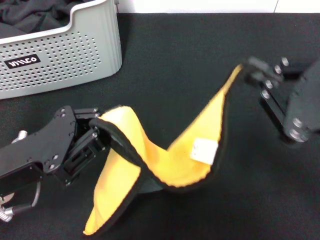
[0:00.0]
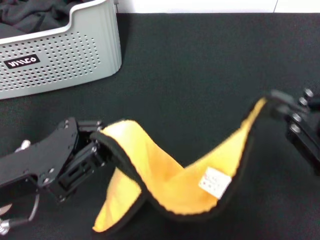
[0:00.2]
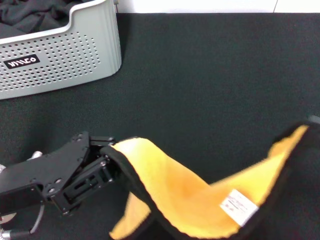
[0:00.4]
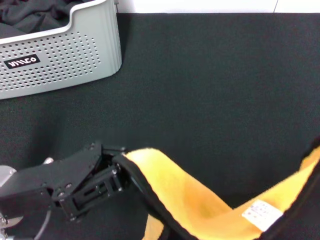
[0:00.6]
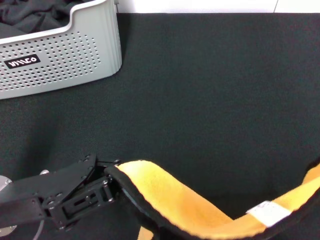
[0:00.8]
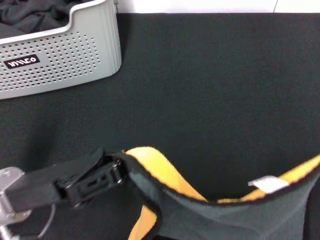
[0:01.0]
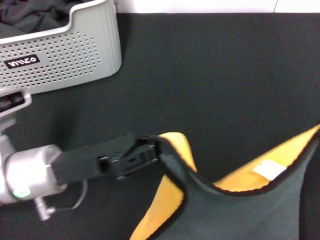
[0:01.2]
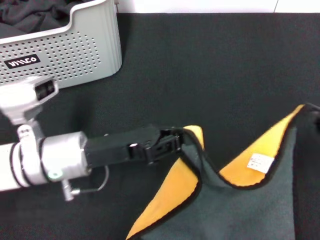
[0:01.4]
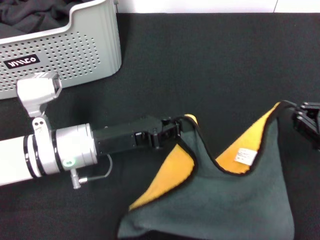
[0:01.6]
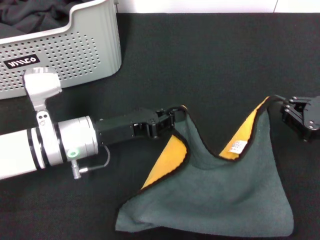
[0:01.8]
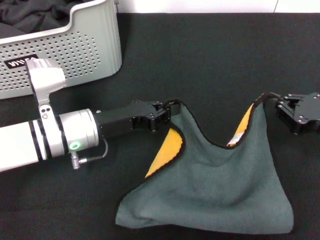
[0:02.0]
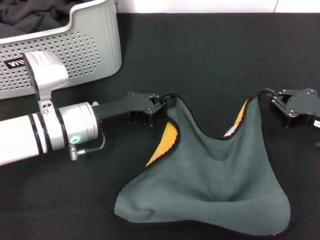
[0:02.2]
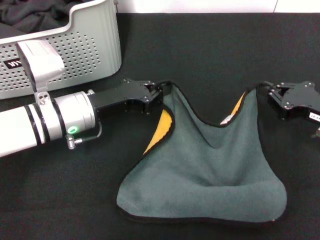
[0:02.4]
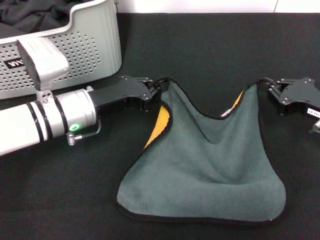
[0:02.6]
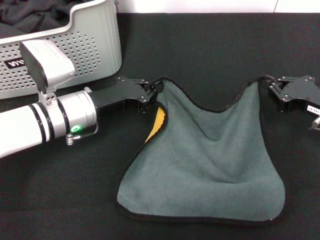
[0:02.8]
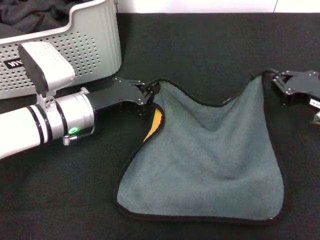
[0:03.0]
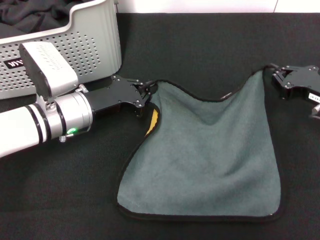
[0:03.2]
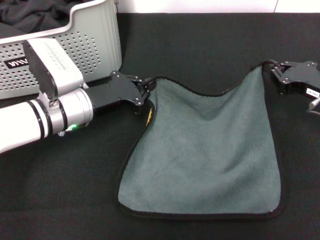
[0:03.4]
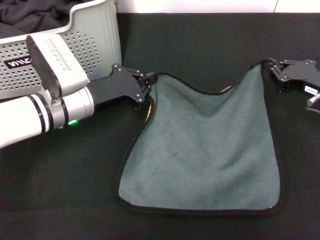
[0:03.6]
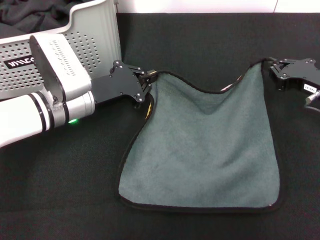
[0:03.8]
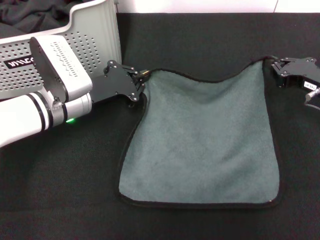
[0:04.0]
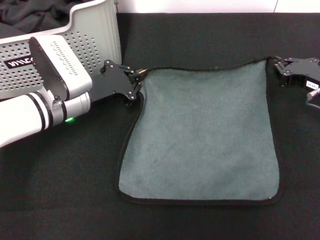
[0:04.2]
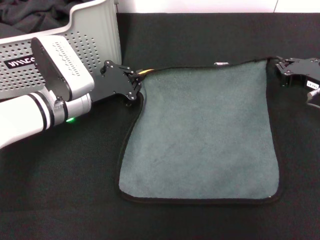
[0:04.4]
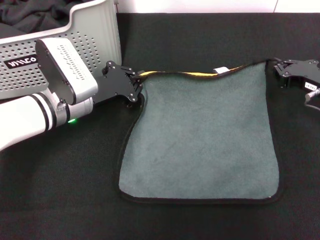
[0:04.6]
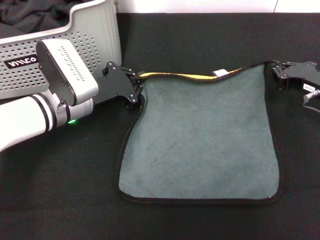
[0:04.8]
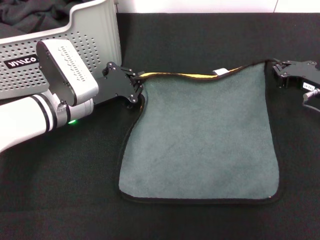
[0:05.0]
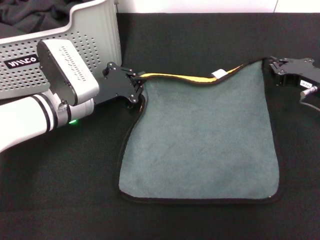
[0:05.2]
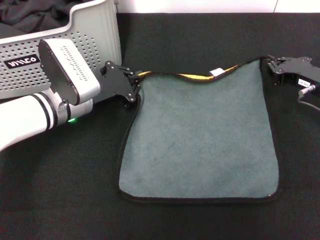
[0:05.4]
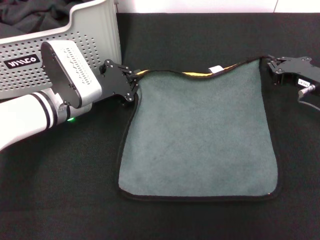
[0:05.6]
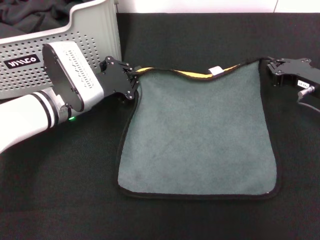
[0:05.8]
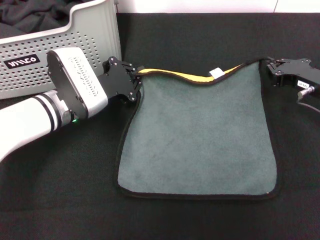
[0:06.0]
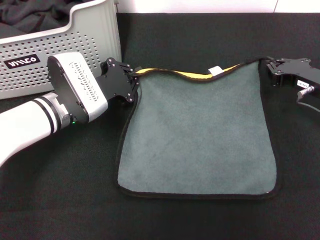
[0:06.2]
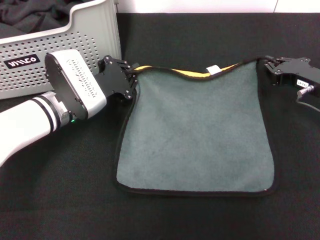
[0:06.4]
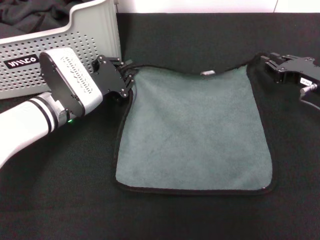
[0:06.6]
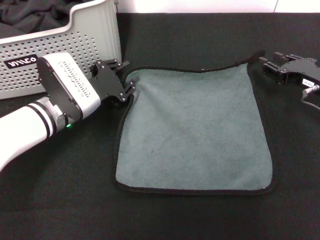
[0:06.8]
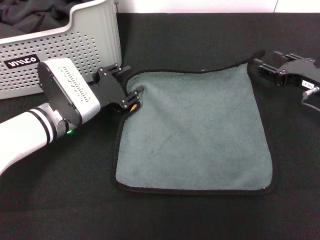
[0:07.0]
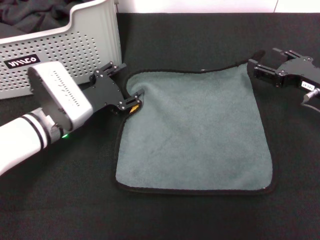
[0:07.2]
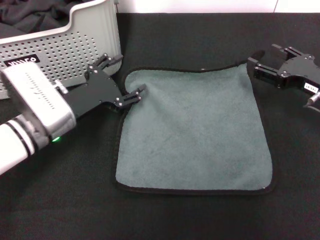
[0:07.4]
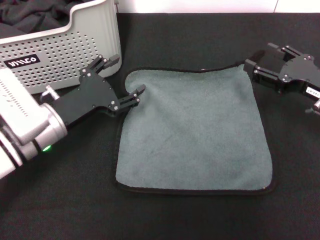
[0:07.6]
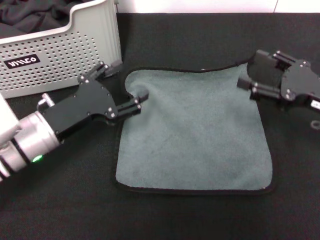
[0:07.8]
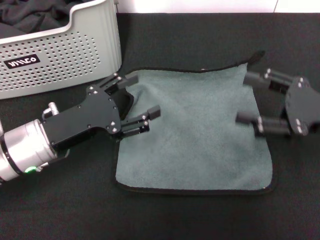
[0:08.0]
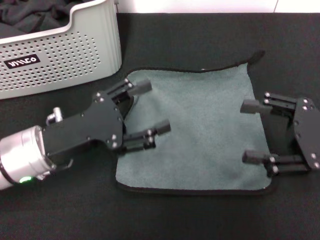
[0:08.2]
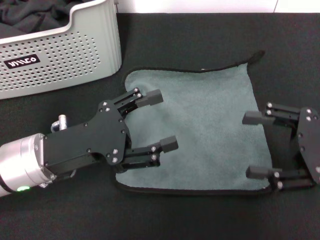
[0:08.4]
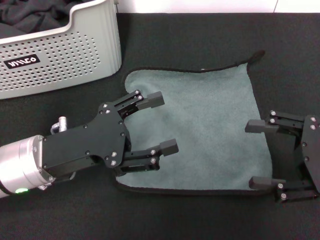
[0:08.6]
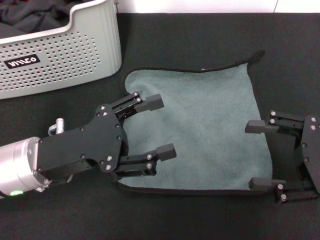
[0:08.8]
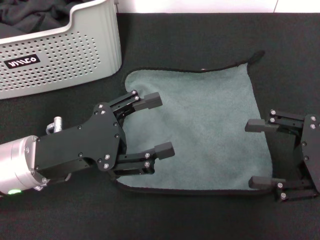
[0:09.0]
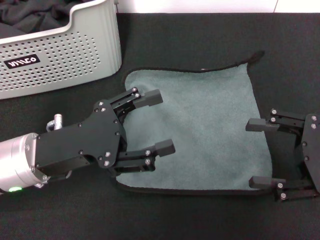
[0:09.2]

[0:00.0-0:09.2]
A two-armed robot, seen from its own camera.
Task of the whole recording: pick up the towel from the storage box and lay it flat on the black tablecloth.
Step, 0:00.0 to 0:06.6: Spread the towel flat with the right gripper.
0:00.0 to 0:01.6: The right gripper travels downward, to the right and forward by approximately 15 cm. The left gripper is displaced forward, to the right and downward by some 10 cm.
0:01.6 to 0:03.0: The two grippers go approximately 5 cm forward.
0:04.6 to 0:06.2: The grippers stay close to where they were, moving slightly.
0:06.2 to 0:07.6: The left gripper moves backward, approximately 5 cm, and opens its fingers, while the right gripper opens.
0:07.6 to 0:09.2: Both grippers travel together backward, approximately 5 cm.
